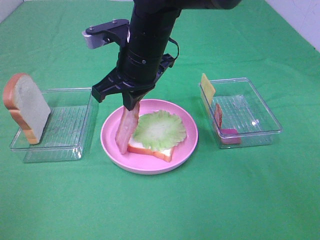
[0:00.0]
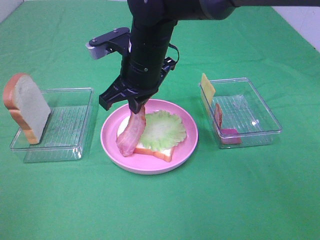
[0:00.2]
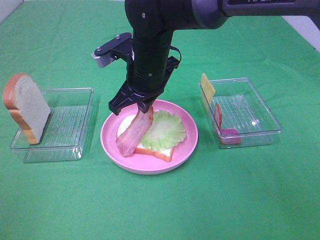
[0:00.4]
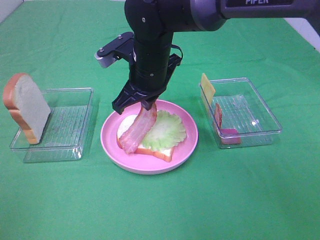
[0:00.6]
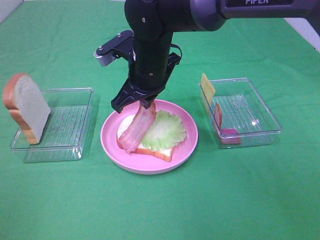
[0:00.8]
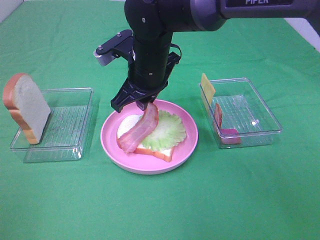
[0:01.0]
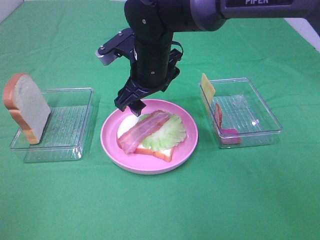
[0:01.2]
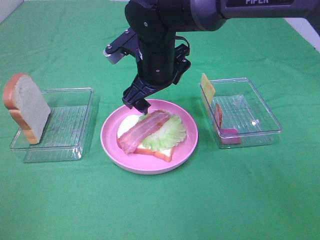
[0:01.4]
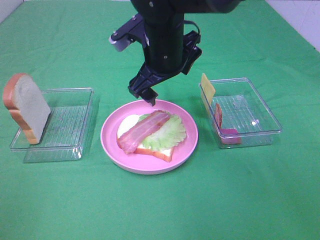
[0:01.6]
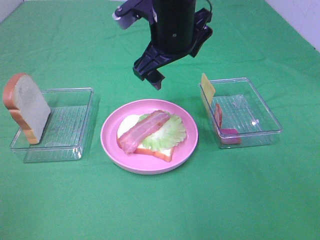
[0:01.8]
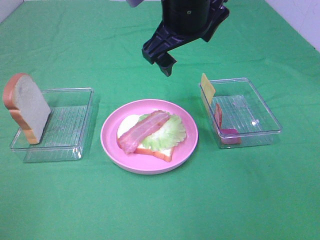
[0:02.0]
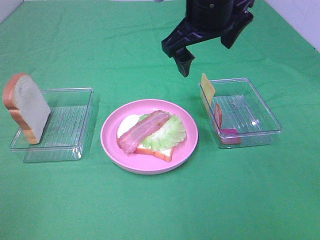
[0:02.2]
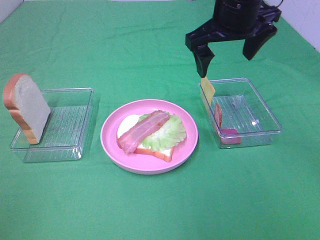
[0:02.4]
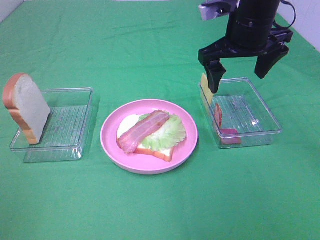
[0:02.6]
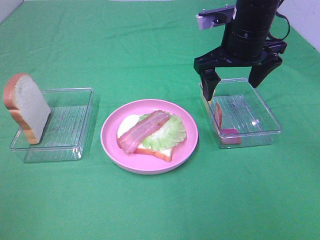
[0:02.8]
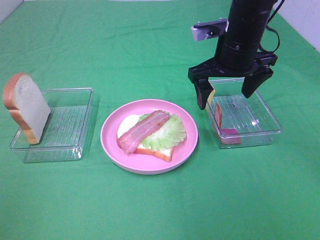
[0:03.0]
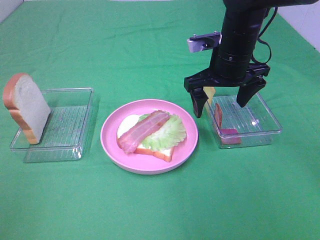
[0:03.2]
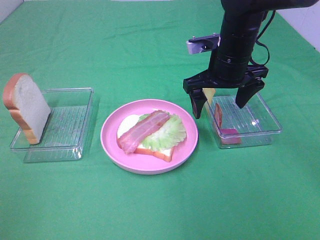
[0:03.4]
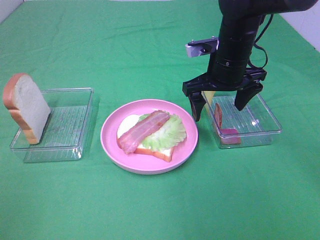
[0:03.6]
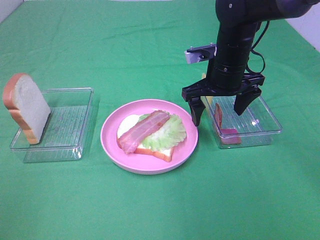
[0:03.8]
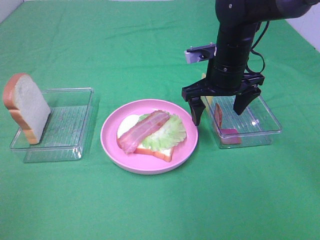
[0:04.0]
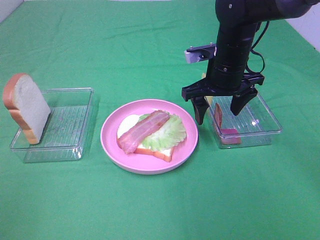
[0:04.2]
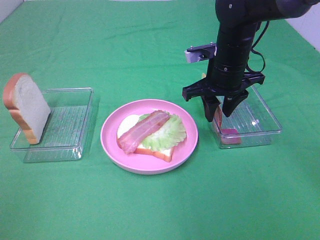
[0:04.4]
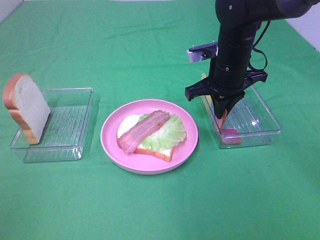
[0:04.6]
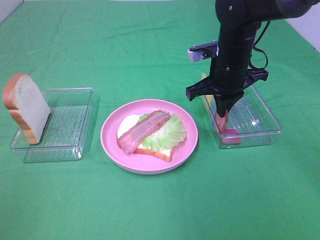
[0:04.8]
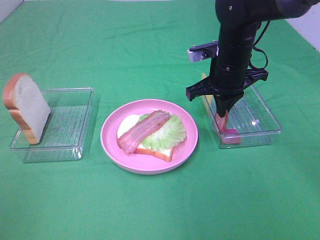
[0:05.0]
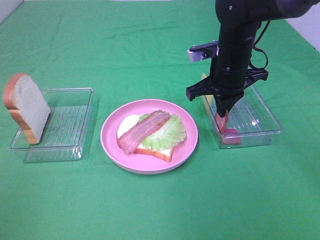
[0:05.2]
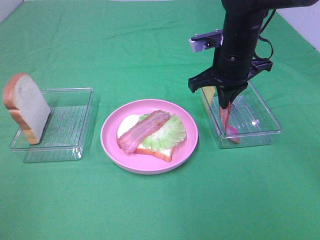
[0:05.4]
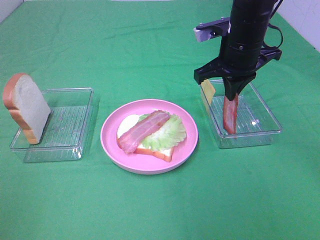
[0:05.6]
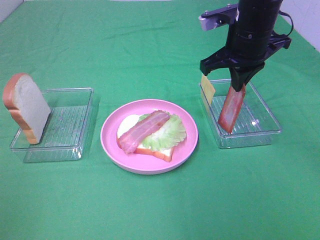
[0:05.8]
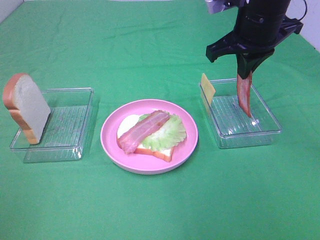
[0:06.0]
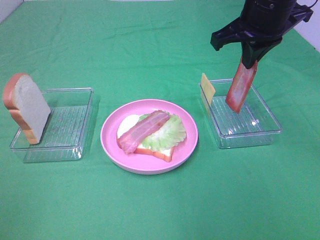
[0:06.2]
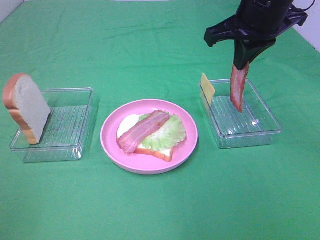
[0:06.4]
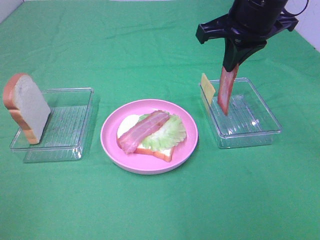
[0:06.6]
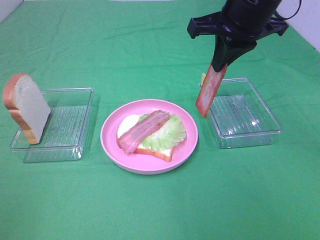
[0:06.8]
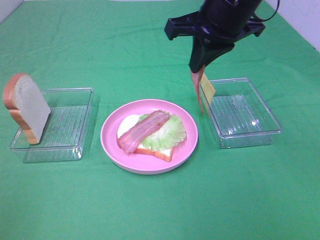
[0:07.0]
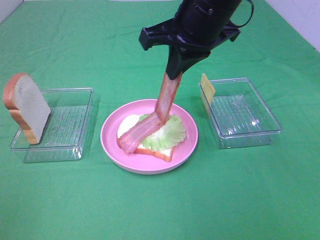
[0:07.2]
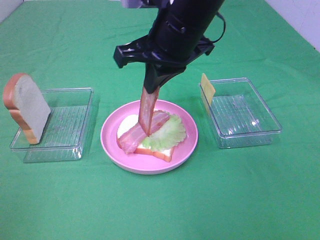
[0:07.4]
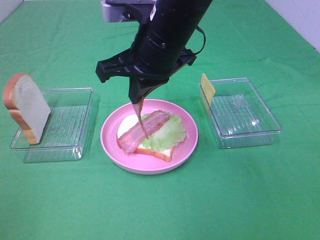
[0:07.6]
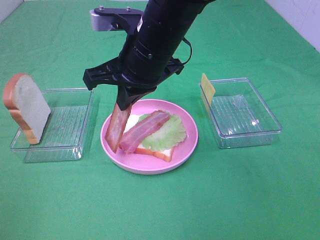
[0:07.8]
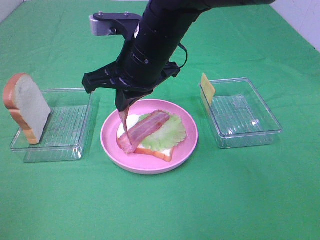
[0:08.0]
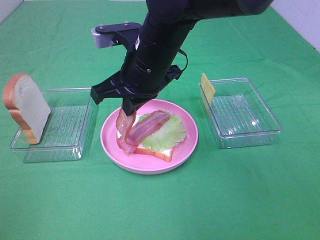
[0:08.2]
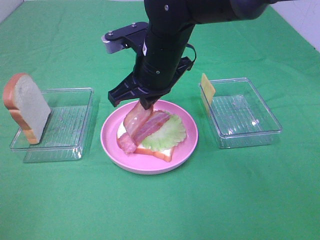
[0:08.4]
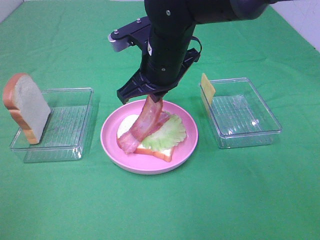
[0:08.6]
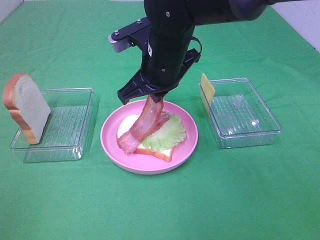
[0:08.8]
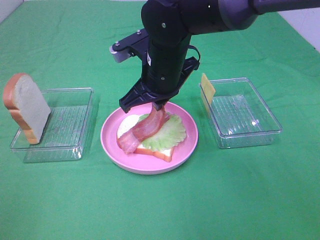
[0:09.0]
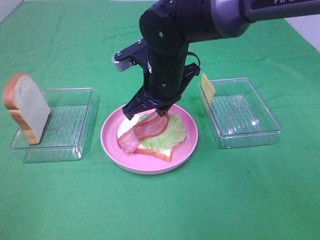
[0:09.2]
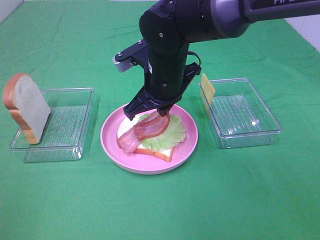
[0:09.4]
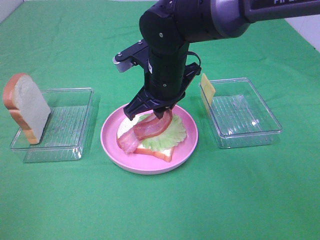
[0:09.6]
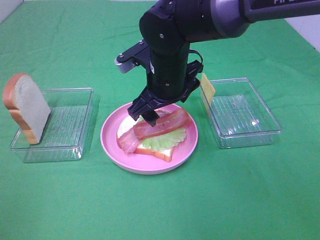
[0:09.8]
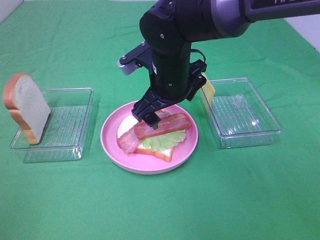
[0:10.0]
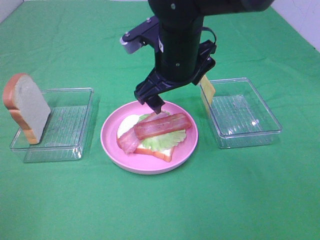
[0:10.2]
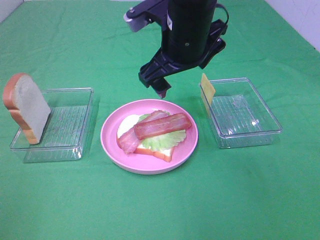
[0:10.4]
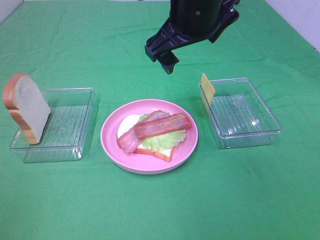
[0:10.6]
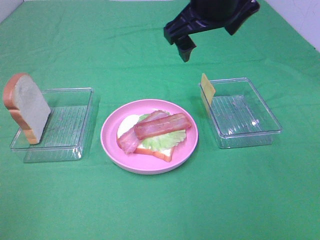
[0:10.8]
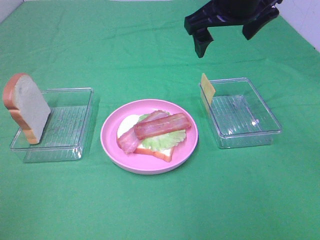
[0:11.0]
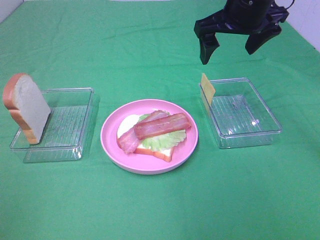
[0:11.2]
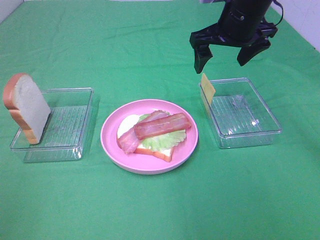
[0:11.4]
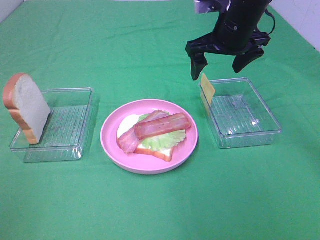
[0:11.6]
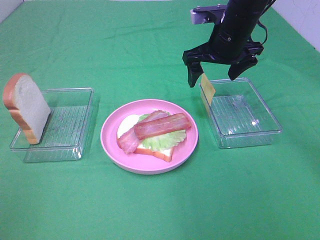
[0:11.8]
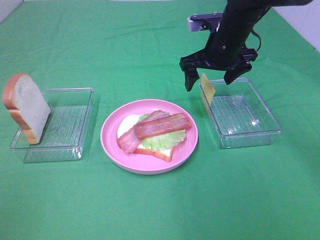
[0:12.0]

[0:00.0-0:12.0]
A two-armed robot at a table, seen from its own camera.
Task of the whole recording: Make sandwiches.
Step, 0:01.2 to 0:04.8: Right hand:grab the bacon.
Step, 0:05.0 to 0:09.8: Right hand:place bacon on bacon.
0:00.0 to 0:01.6: The right gripper opens its fingers.
0:01.6 to 0:03.0: The right gripper heads to the right, covering about 10 cm.
0:03.0 to 0:04.4: The right gripper closes its fingers.
0:04.4 to 0:06.0: The right gripper goes about 10 cm upward, and closes its fingers.
0:06.0 to 0:07.6: The right gripper is displaced to the left by some 15 cm.
0:07.6 to 0:09.0: The right gripper goes roughly 5 cm downward.
0:09.0 to 0:10.4: The right gripper goes about 5 cm upward, and opens up.
0:10.4 to 0:12.0: The right gripper shifts roughly 15 cm forward, to the right and downward.

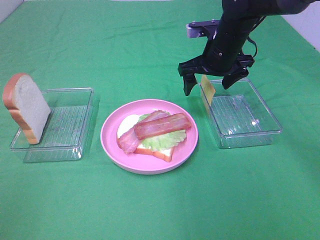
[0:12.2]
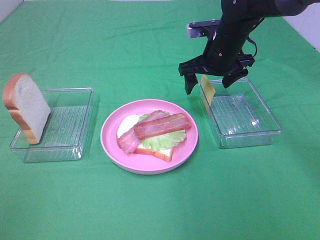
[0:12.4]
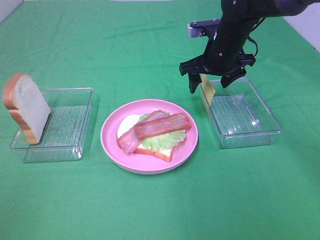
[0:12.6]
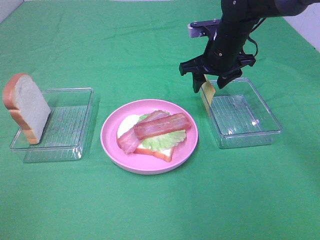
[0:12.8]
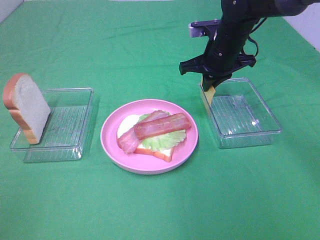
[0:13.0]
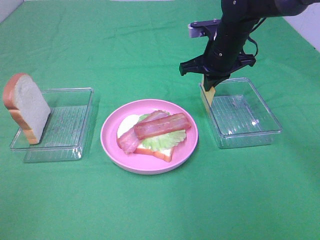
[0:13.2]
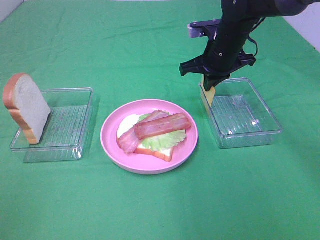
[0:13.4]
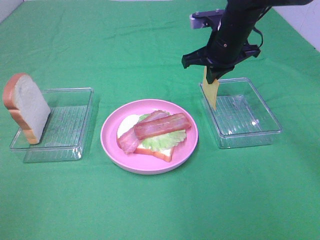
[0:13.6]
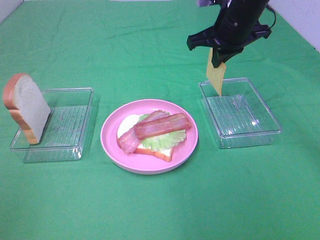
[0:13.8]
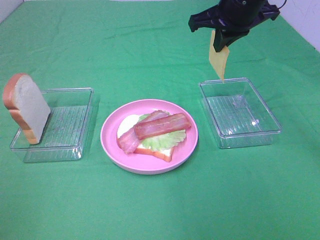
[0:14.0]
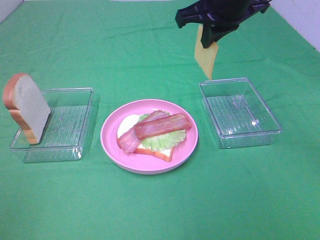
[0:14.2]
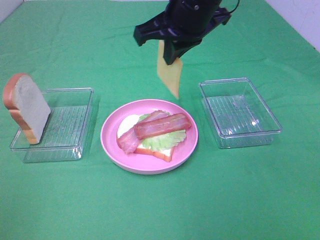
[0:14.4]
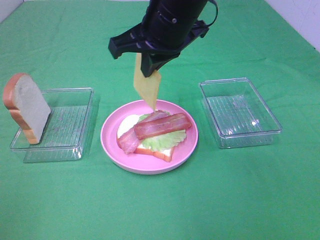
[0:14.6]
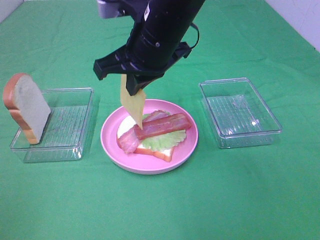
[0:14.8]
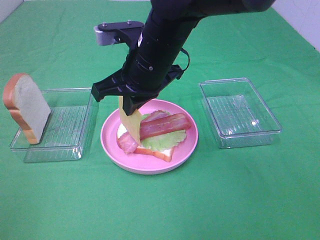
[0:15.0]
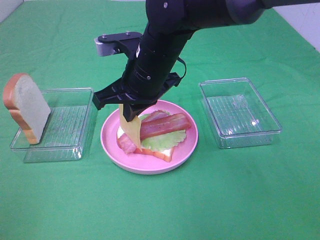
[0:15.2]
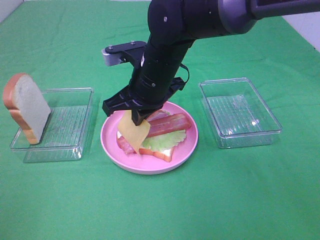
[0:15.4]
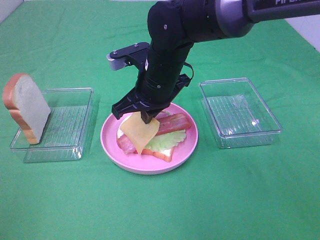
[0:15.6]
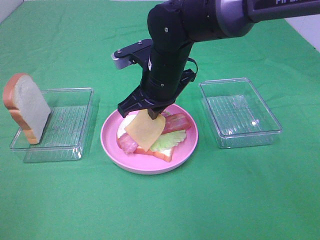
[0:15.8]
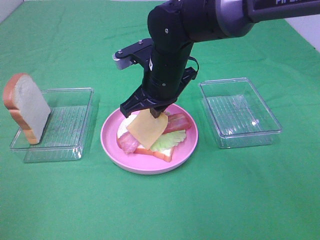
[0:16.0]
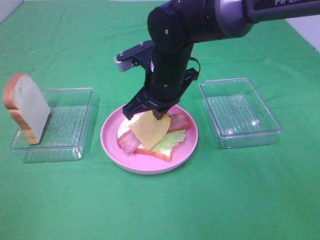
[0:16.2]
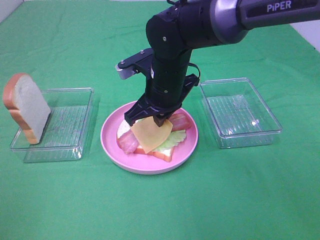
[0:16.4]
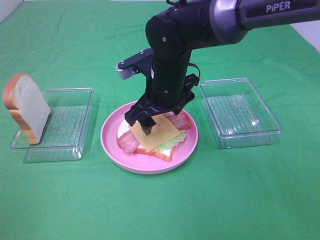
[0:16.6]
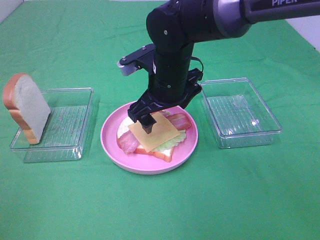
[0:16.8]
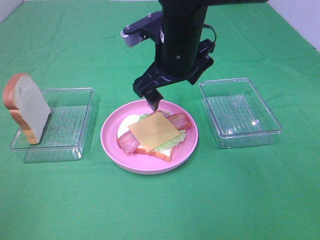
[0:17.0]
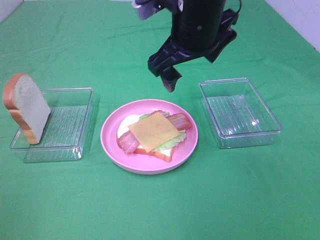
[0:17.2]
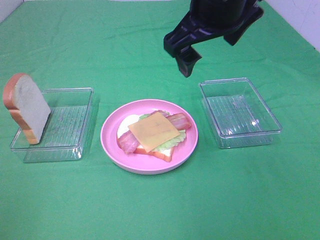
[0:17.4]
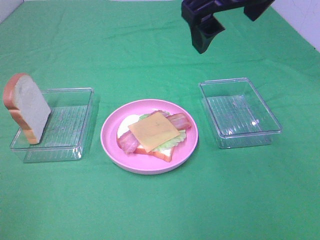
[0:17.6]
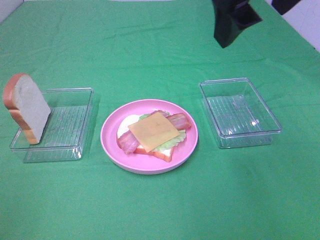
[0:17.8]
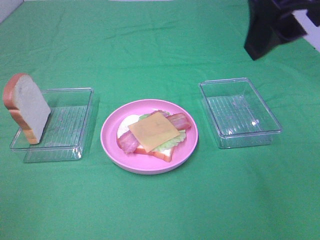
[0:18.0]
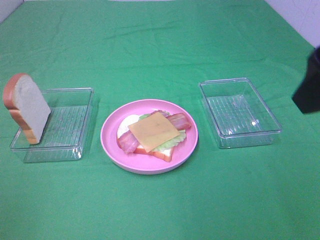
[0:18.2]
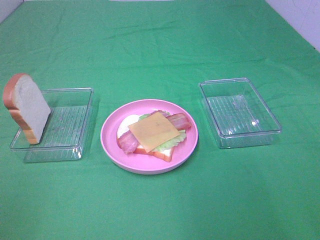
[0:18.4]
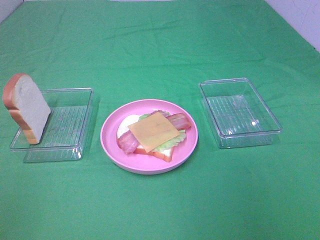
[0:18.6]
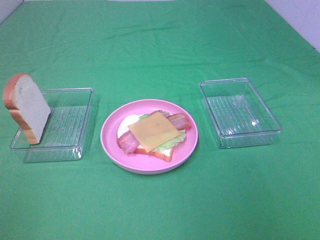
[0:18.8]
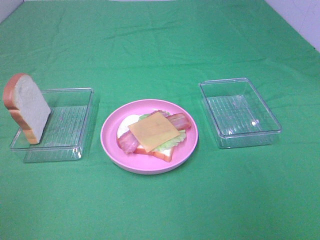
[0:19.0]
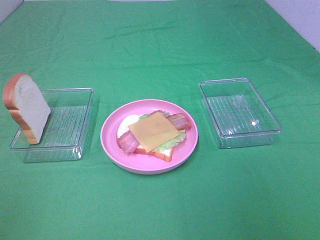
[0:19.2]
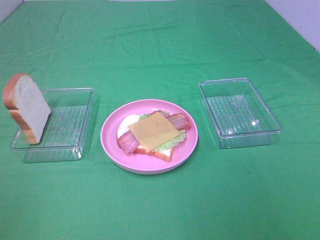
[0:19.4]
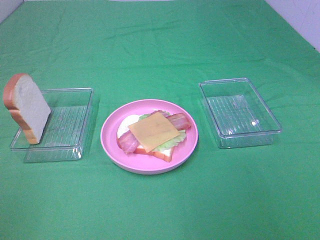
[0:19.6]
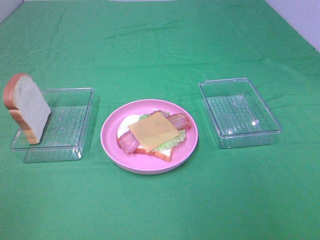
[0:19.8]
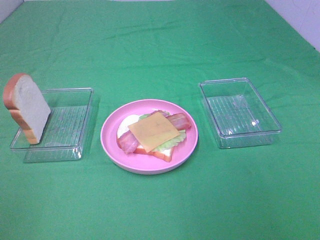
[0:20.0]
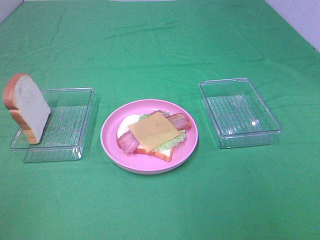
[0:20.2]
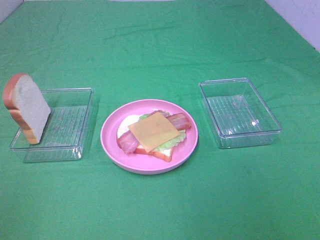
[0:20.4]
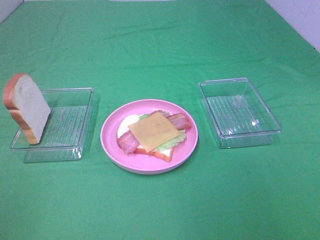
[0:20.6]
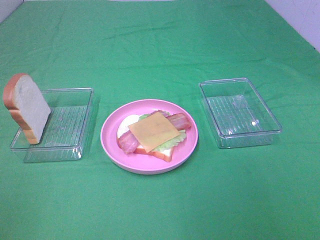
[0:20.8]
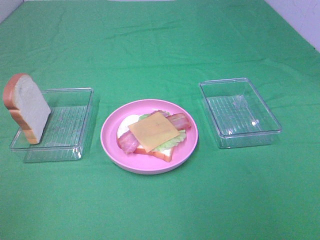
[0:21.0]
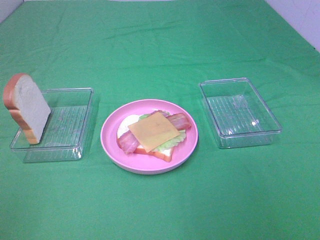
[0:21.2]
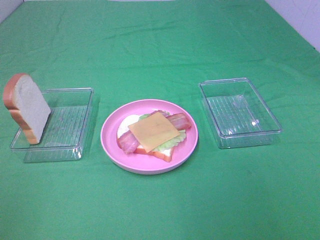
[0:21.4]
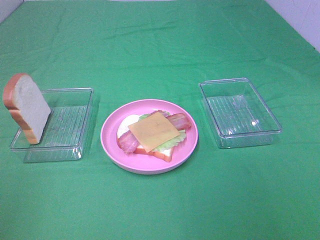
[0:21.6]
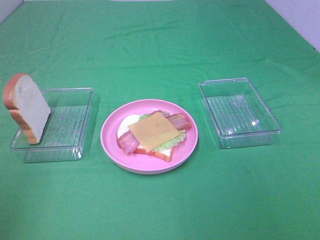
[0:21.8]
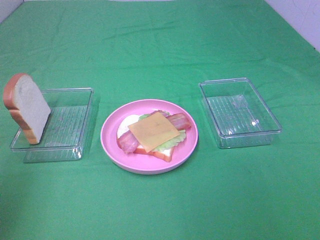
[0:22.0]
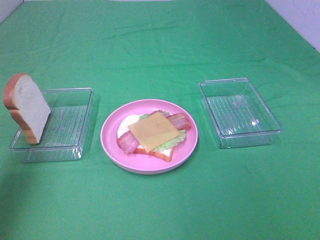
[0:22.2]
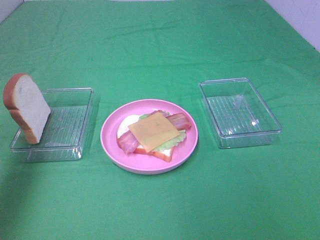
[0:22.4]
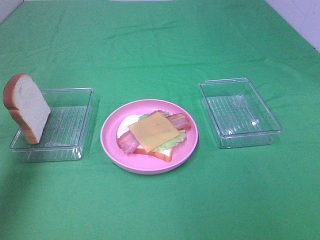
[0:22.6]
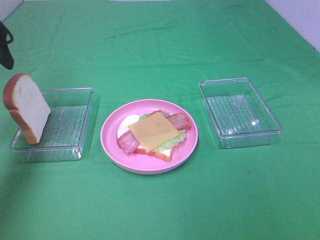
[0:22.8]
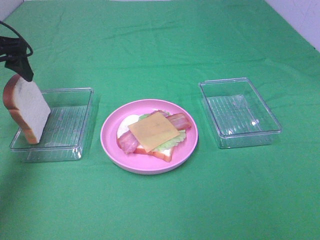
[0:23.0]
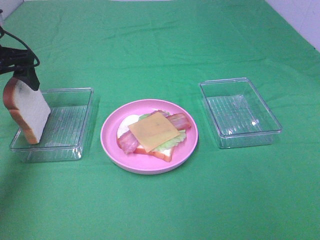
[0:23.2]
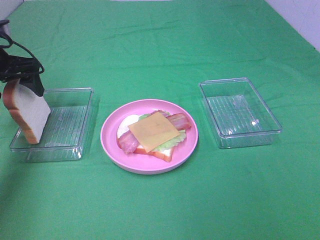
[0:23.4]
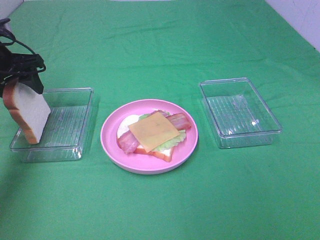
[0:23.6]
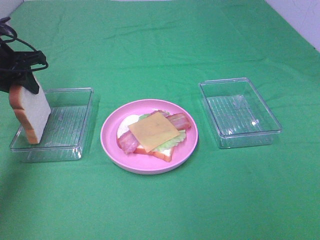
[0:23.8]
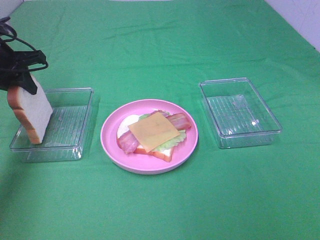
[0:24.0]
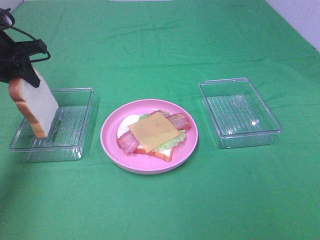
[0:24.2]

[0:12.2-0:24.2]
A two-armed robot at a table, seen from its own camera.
Task of the whole recording: Make sandwiches.
Step, 0:13.4 to 0:16.8: Right hand:place the cheese slice on top of the bacon.
Step, 0:17.0 to 0:23.8: Left hand:grab the bread slice.
0:12.2 to 0:13.8: The right gripper moves upward, some 10 cm, and closes up.
0:13.8 to 0:15.2: The right gripper moves to the left and backward, approximately 20 cm.
0:15.2 to 0:16.6: The right gripper opens.
0:16.6 to 0:18.2: The right gripper is displaced backward, upward and to the right by roughly 35 cm.
0:18.2 to 0:19.8: The right gripper travels backward, to the right and downward by about 20 cm.
0:19.8 to 0:21.2: Both grippers stay put.
0:21.2 to 0:22.6: The left gripper is displaced forward by roughly 35 cm.
0:22.6 to 0:24.2: The left gripper shifts about 15 cm downward and forward, and closes up.
